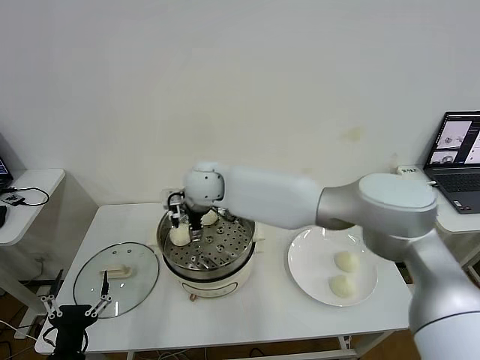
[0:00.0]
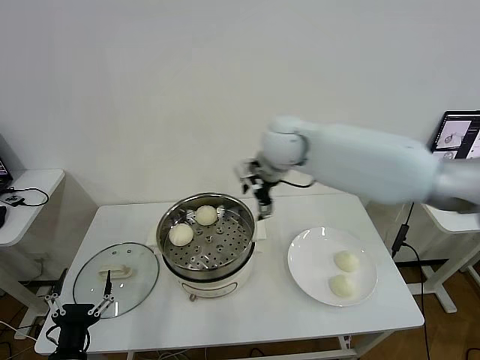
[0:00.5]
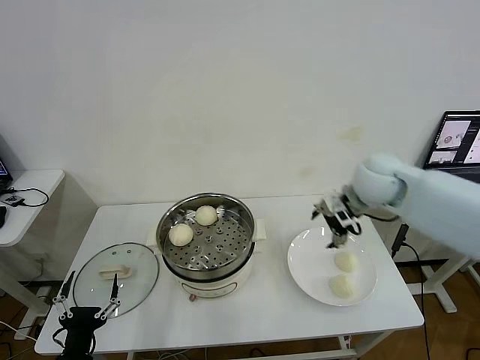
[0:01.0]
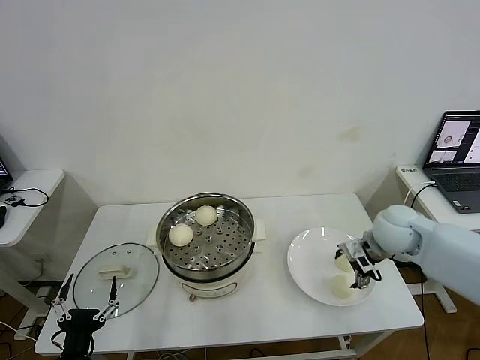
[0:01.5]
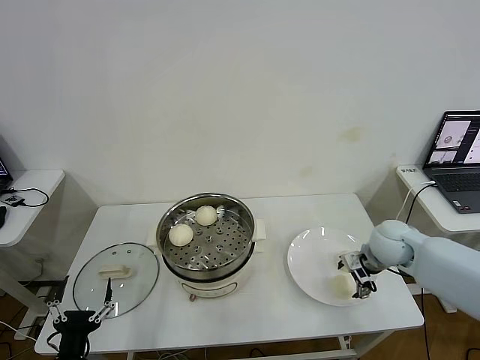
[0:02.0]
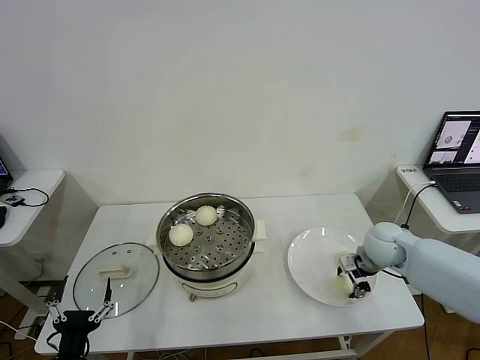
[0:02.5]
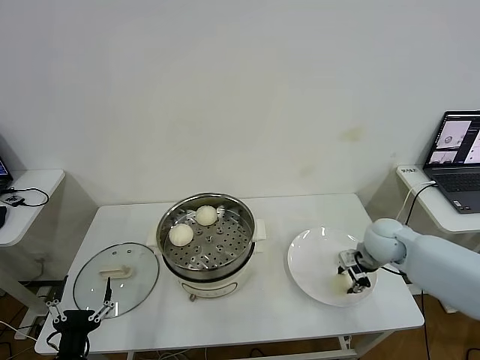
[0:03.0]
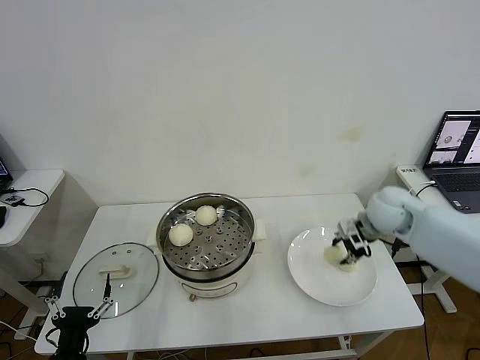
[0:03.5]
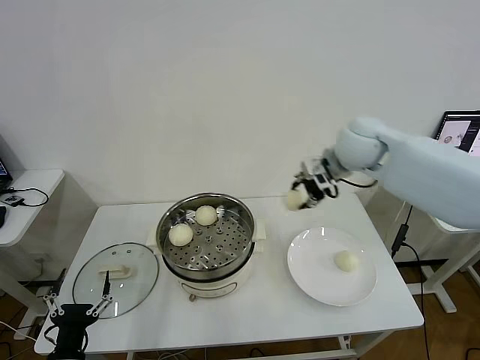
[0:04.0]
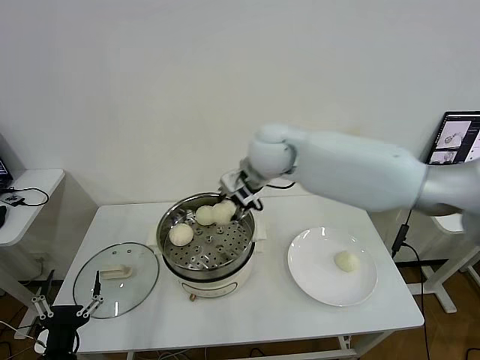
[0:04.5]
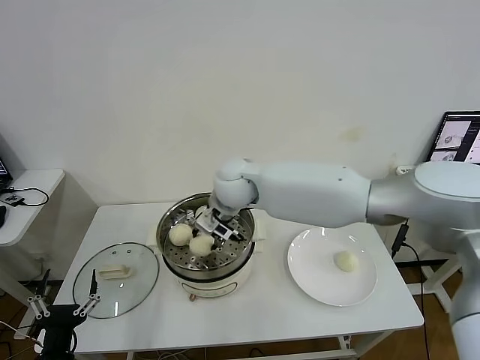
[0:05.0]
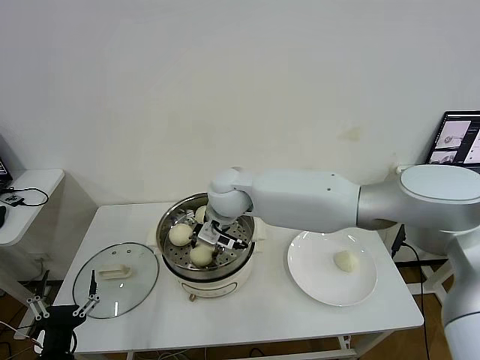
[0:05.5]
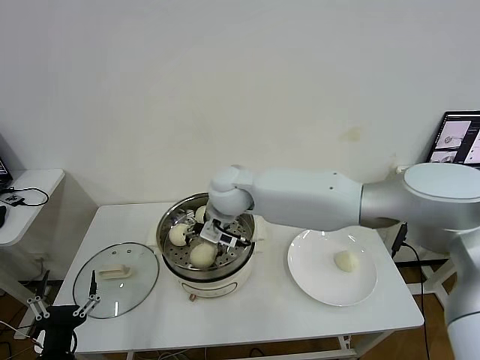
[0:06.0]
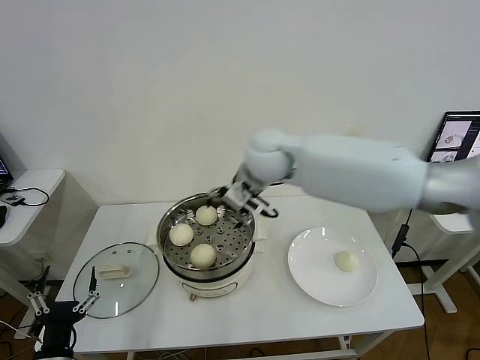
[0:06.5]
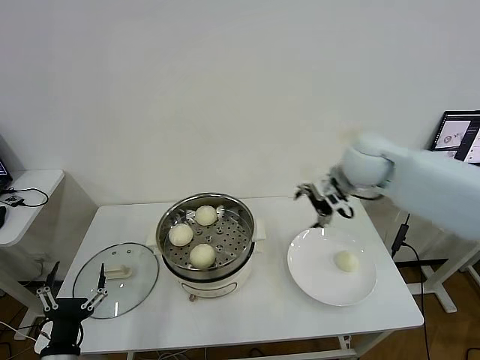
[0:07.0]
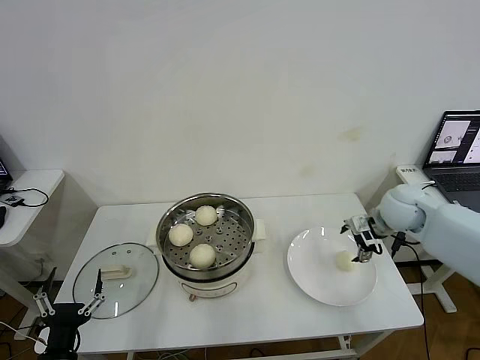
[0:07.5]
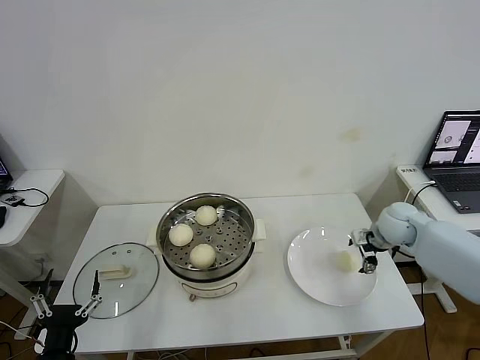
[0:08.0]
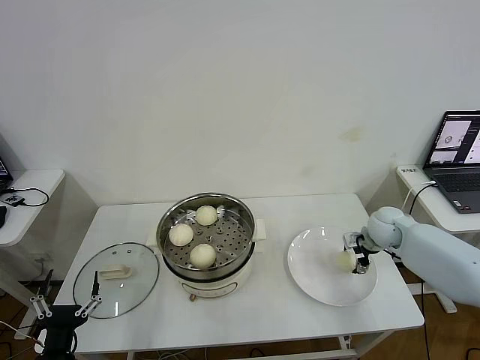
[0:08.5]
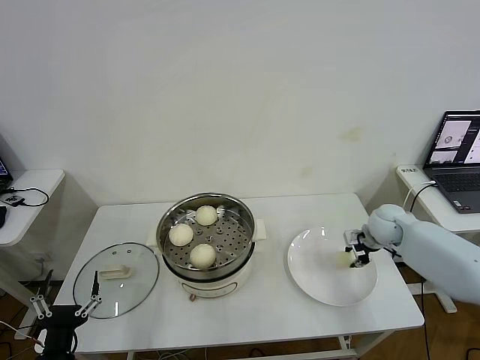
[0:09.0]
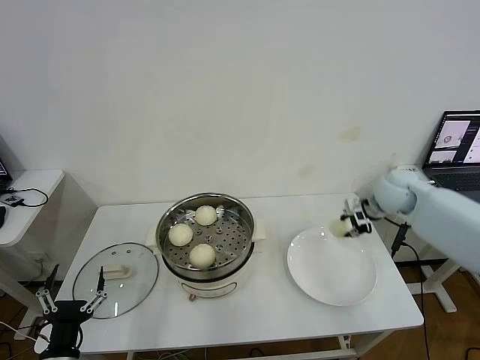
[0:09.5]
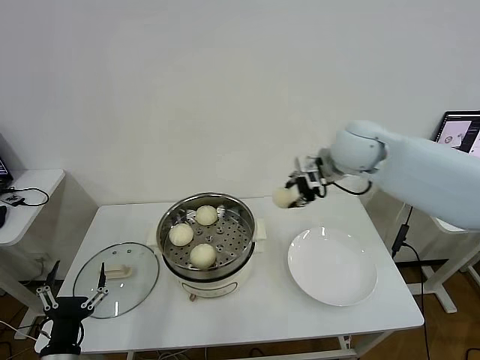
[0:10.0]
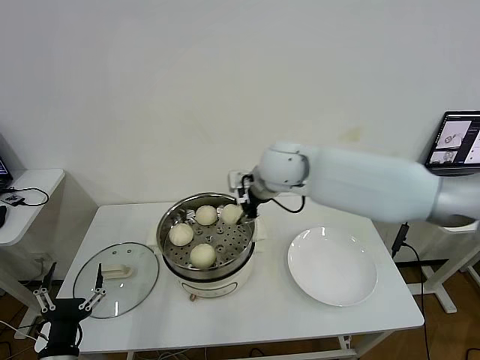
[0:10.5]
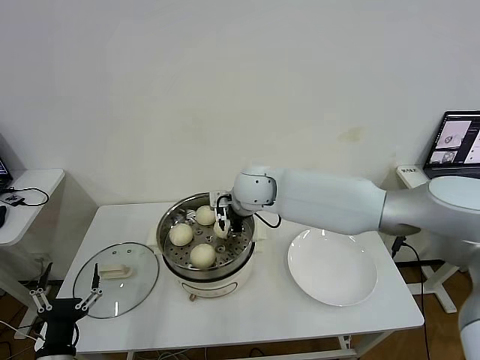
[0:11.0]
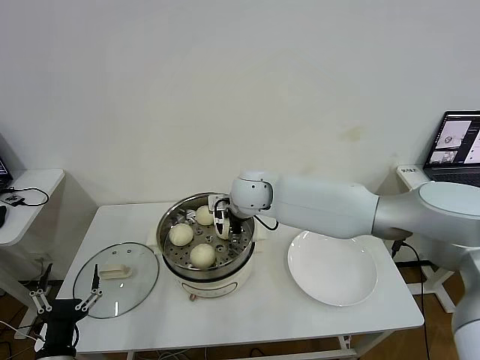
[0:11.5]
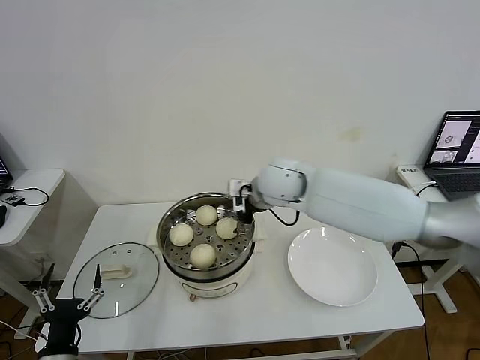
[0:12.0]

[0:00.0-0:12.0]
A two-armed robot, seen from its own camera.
Step, 0.0 to 2.5 s: Grasp the baozi in the plate with right gripper.
Step, 3.5 to 5.5 s: Place the baozi on the steamer with right gripper.
Step, 6.5 to 9.0 s: Grasp the baozi in the plate with right gripper.
Step, 9.5 to 11.5 s: Place the baozi on the steamer with right gripper.
0.0 to 2.0 s: The right gripper is displaced to the right by approximately 40 cm.
2.0 to 4.0 s: The right gripper is displaced upward, to the left and forward by approximately 25 cm, and closes its fingers.
4.0 to 6.0 s: The right gripper travels to the left and downward by roughly 25 cm, and opens up.
6.0 to 8.0 s: The right gripper shifts about 40 cm to the right.
8.0 to 10.0 s: The right gripper is displaced upward and to the left by roughly 25 cm, and closes.
10.0 to 12.0 s: The right gripper goes some 15 cm to the left and downward, and opens up.

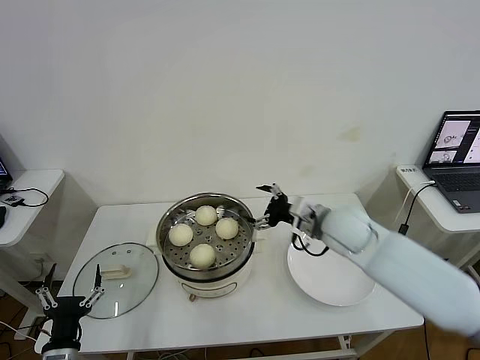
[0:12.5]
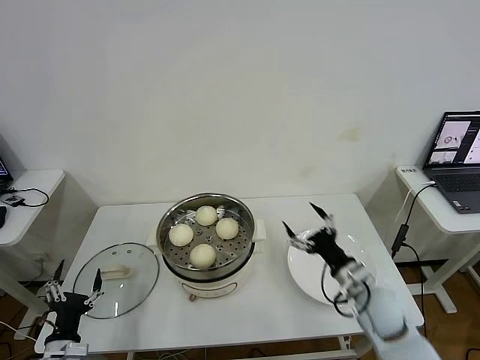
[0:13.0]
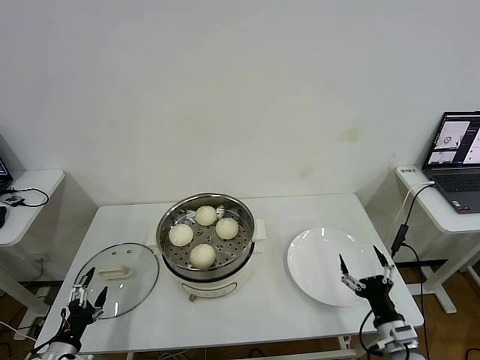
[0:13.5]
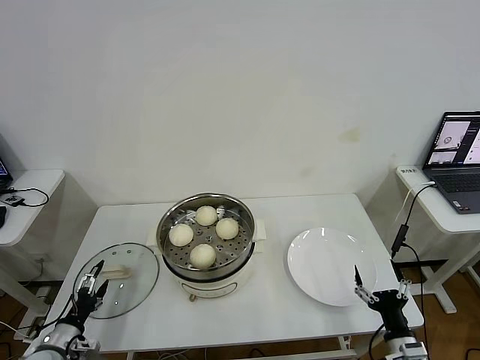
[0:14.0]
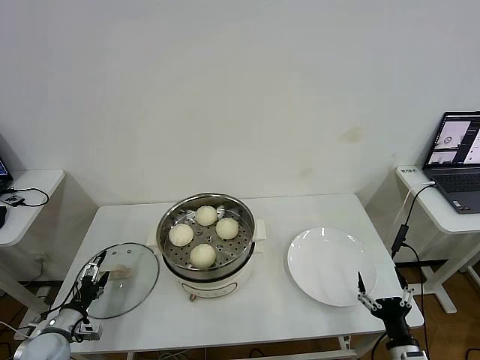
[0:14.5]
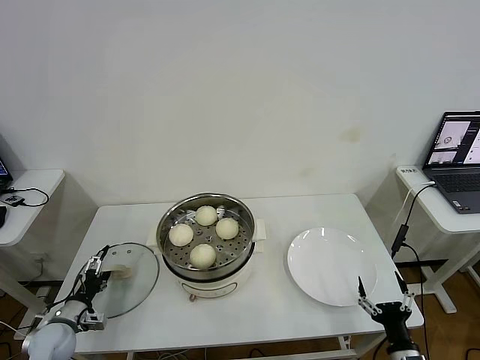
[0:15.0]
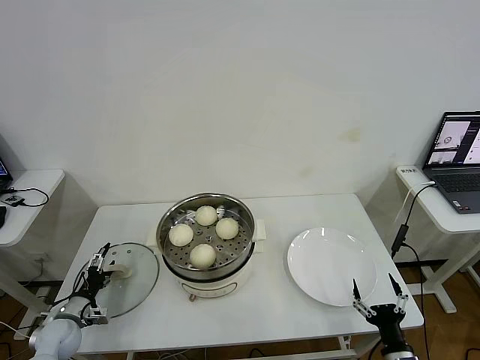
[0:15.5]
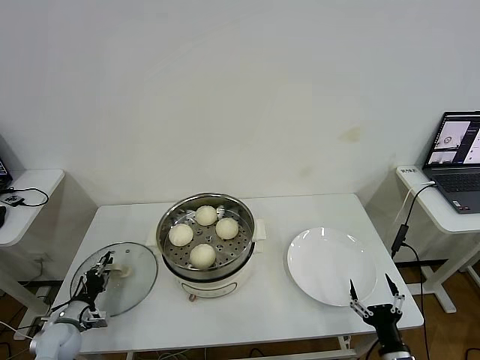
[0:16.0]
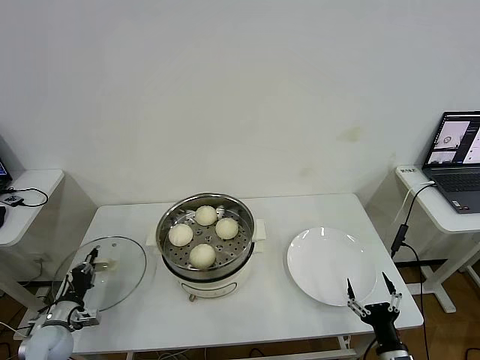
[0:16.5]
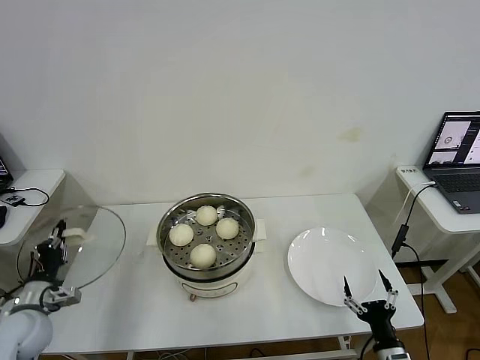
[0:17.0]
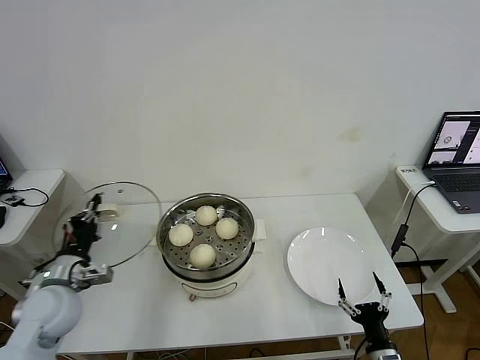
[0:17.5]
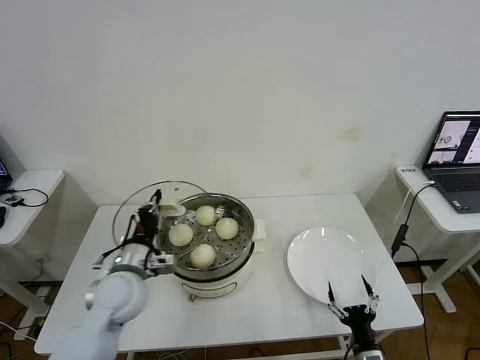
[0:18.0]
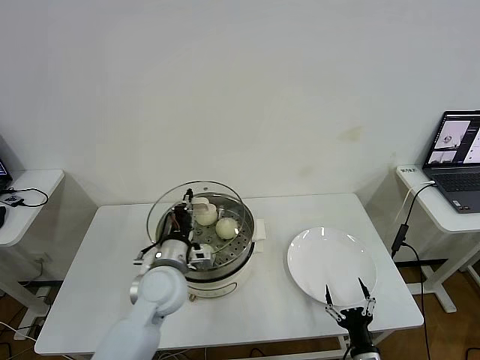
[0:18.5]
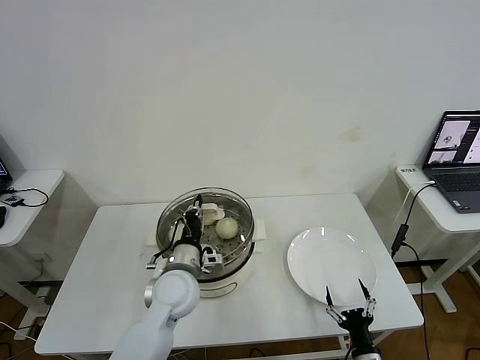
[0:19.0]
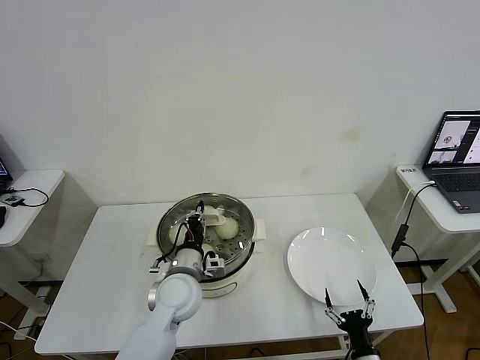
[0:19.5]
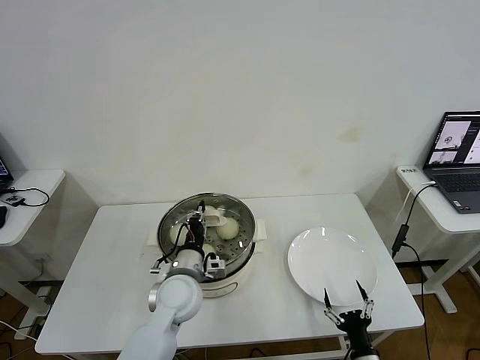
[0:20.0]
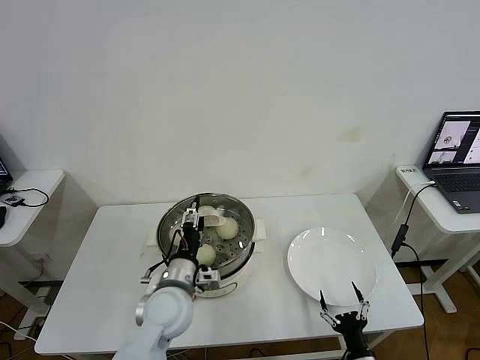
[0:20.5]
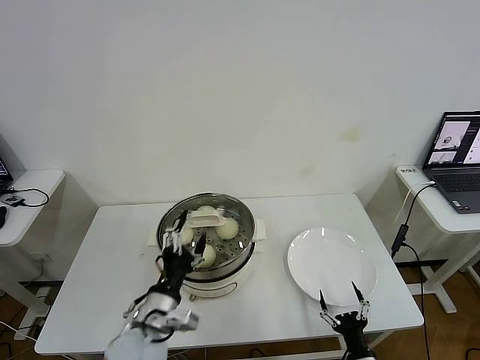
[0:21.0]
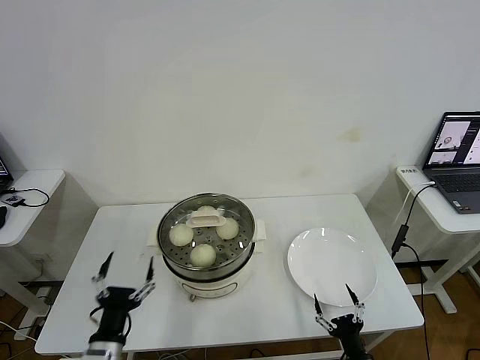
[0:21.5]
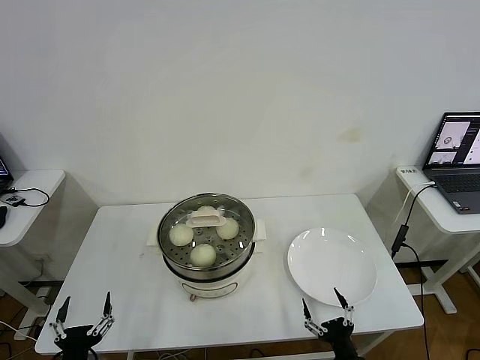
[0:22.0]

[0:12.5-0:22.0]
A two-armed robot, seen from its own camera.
Step, 12.5 to 16.0 s: Grasp the pot lid with left gripper.
Step, 17.0 to 20.0 s: Place the pot lid on the steamer with left gripper.
12.5 to 14.5 s: The left gripper shifts approximately 15 cm forward, to the left and downward. The right gripper goes some 40 cm backward, downward and to the right.
14.5 to 16.5 s: The left gripper closes.
16.5 to 18.0 s: The left gripper goes about 30 cm to the right and upward.
18.0 to 20.0 s: The left gripper is displaced to the right by roughly 10 cm.
20.0 to 22.0 s: The right gripper ends up roughly 5 cm from where it was. Meanwhile the left gripper shifts approximately 30 cm backward and to the left, and opens.

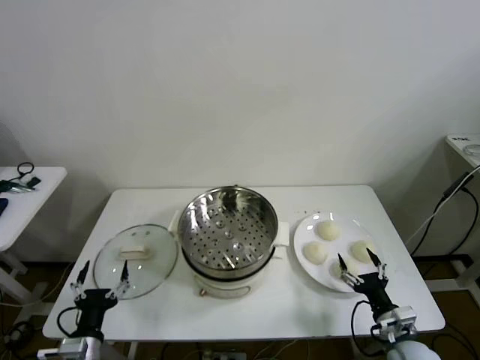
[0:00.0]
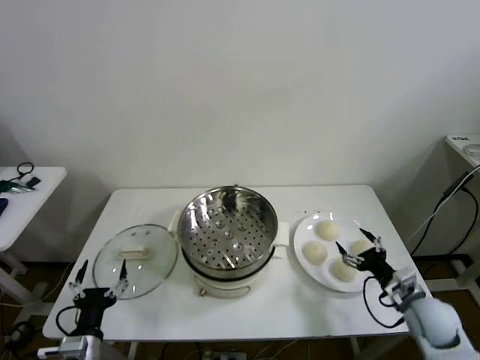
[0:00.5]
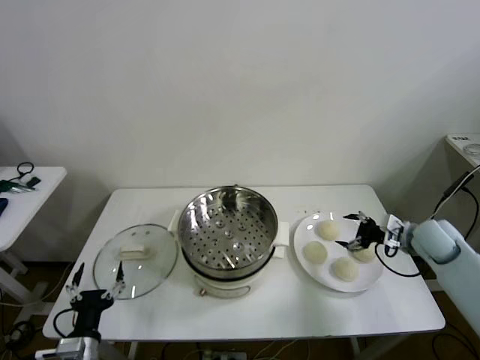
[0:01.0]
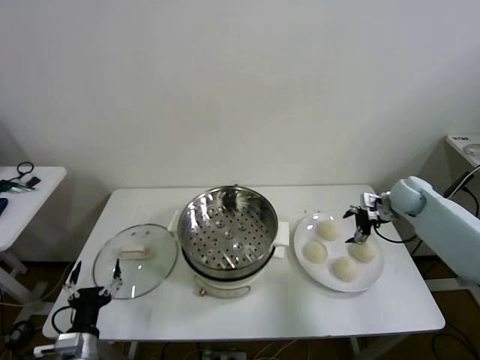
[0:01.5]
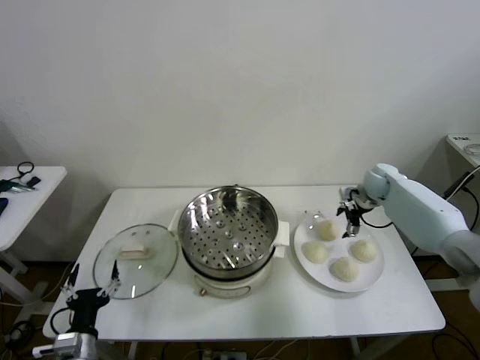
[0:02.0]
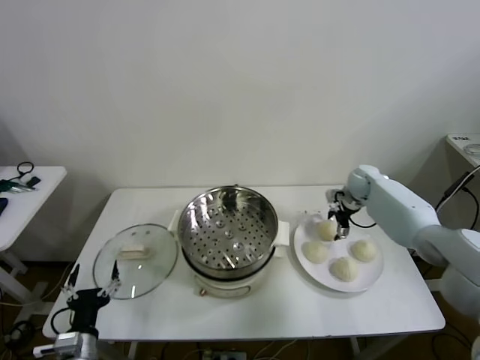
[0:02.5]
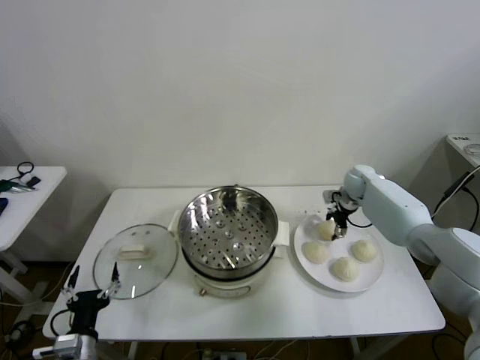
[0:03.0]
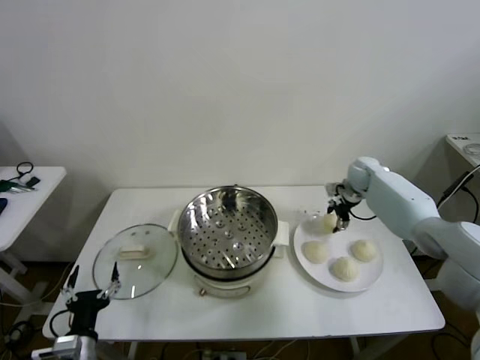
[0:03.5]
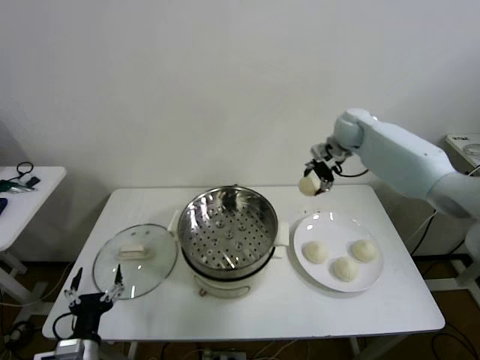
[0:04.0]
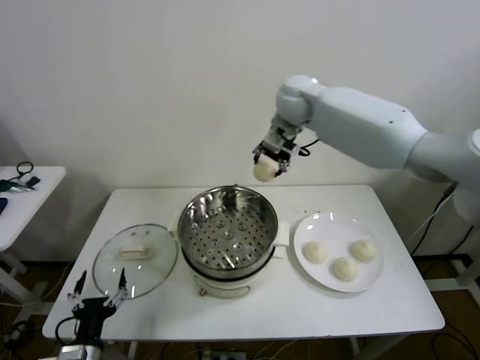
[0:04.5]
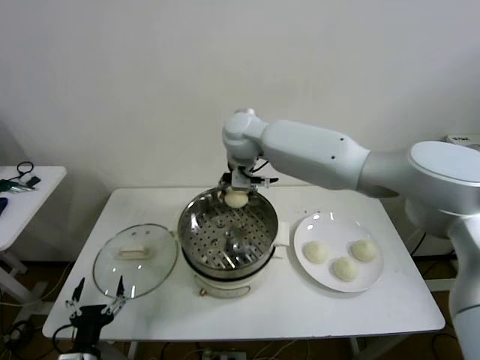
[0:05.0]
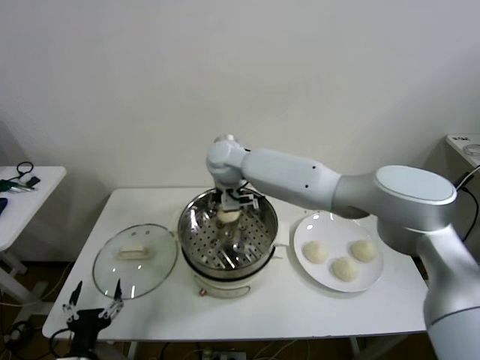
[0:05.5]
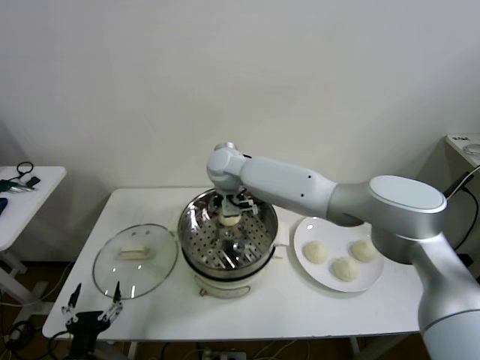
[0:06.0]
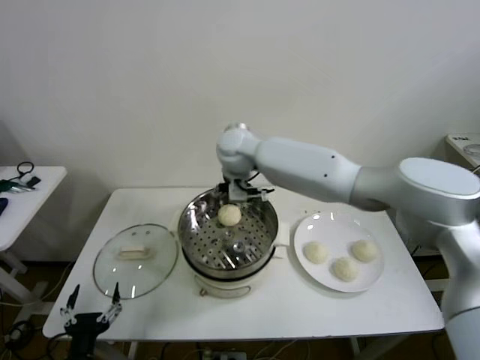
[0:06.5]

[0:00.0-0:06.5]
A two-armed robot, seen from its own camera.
Step, 0.0 to 2.5 s: Grasp the baozi in the plate with right gripper.
Step, 3.5 to 6.0 s: Place the baozi on the steamer with right gripper.
2.0 to 4.5 s: The right gripper goes some 40 cm to the left and upward, and closes.
4.5 to 6.5 s: The right gripper goes about 10 cm to the left and downward, and opens its fingers.
